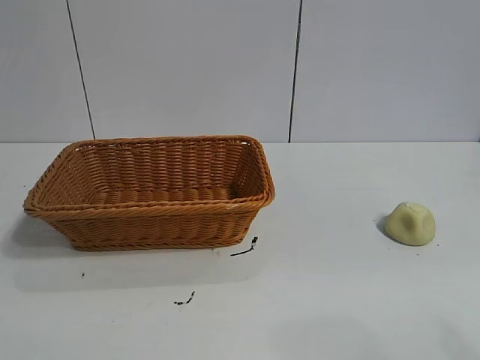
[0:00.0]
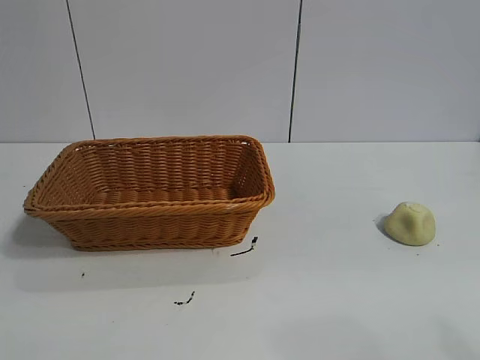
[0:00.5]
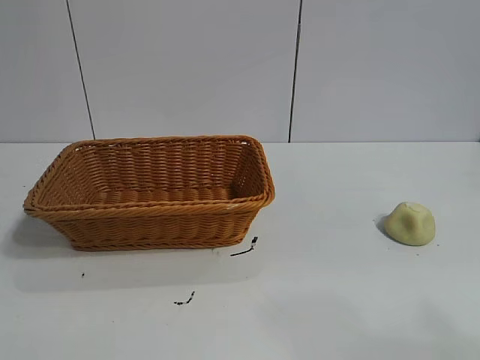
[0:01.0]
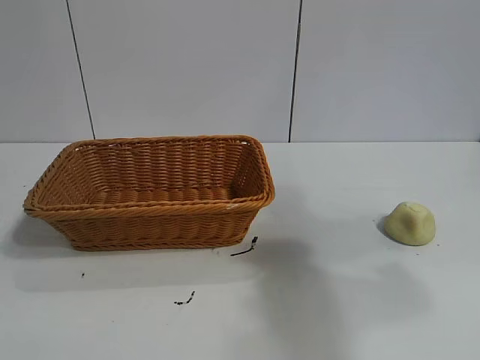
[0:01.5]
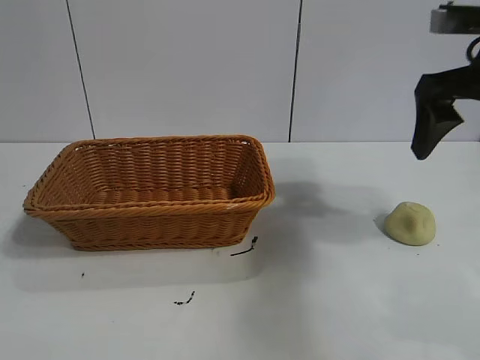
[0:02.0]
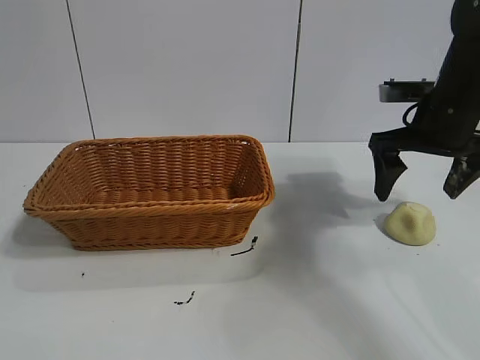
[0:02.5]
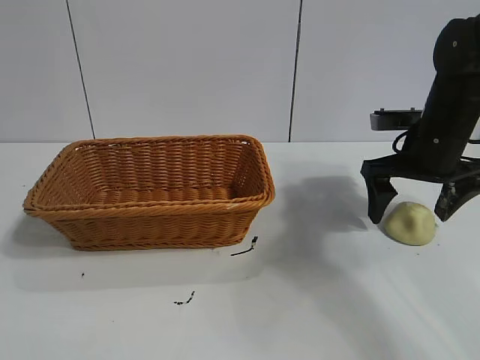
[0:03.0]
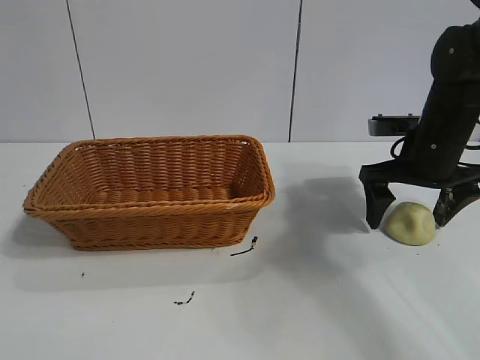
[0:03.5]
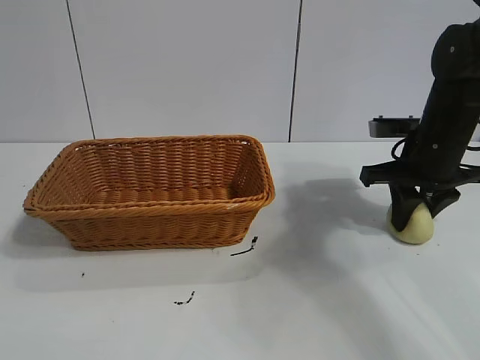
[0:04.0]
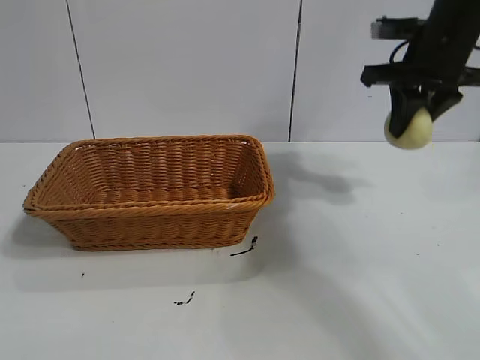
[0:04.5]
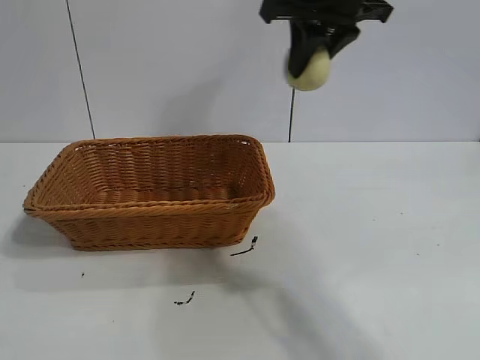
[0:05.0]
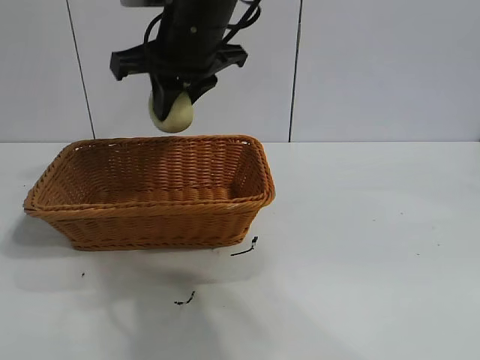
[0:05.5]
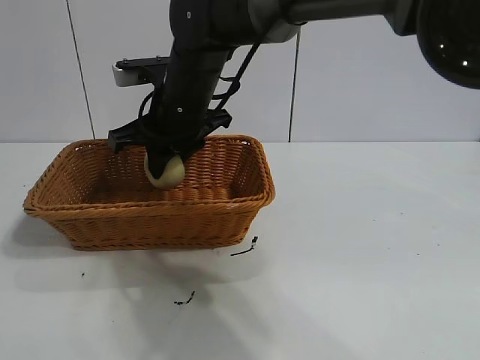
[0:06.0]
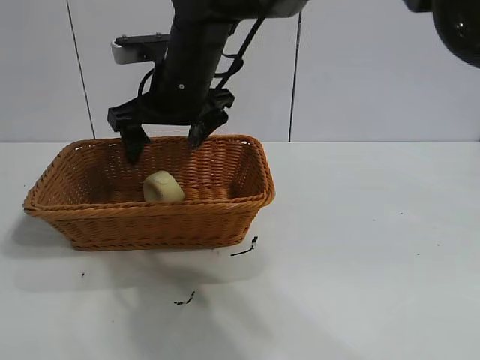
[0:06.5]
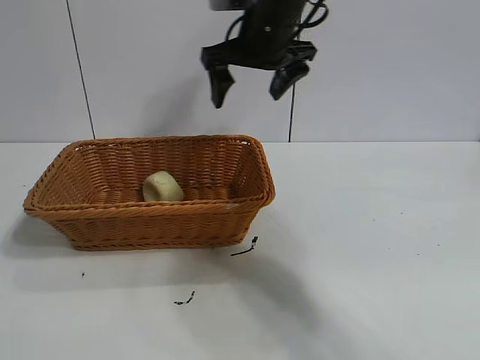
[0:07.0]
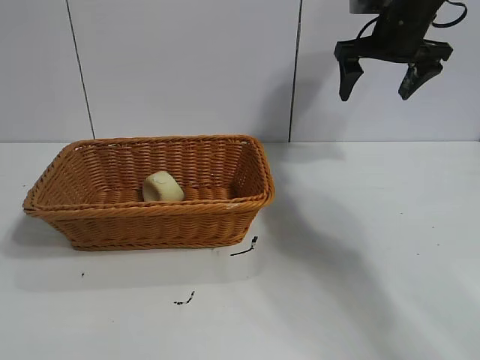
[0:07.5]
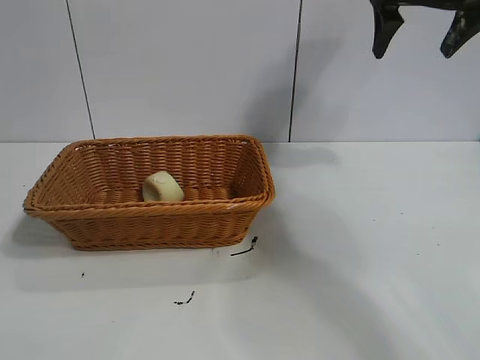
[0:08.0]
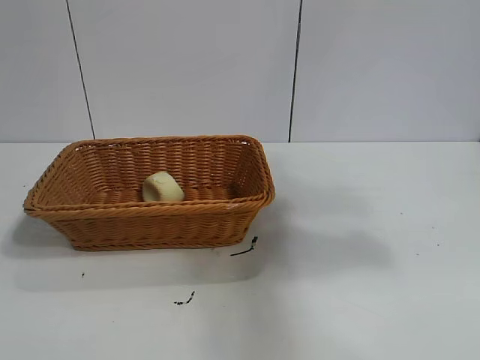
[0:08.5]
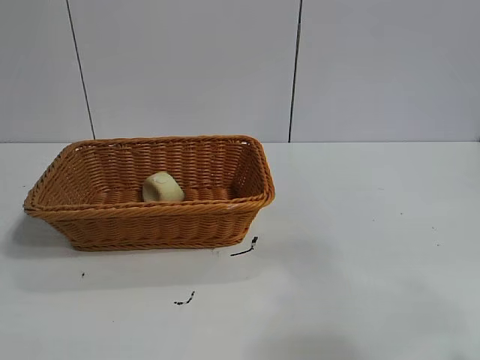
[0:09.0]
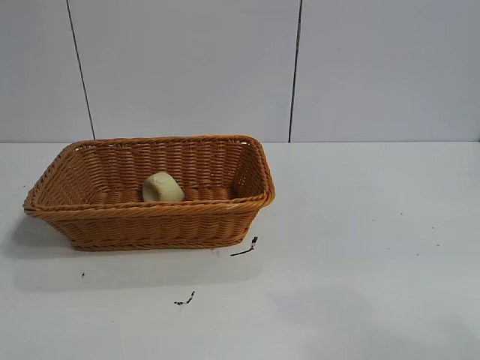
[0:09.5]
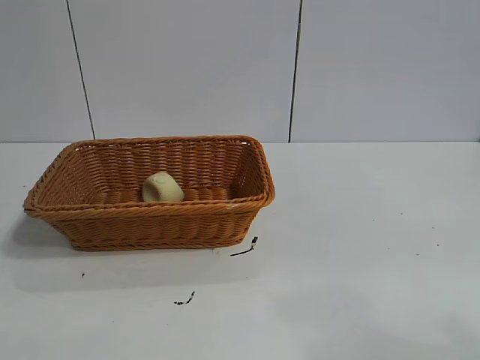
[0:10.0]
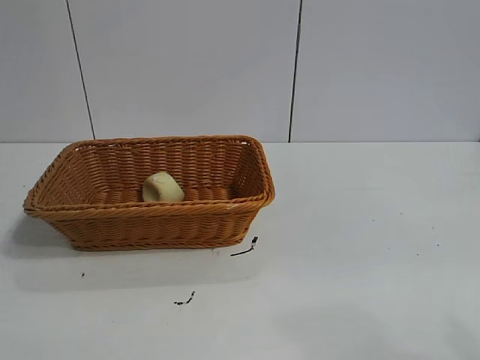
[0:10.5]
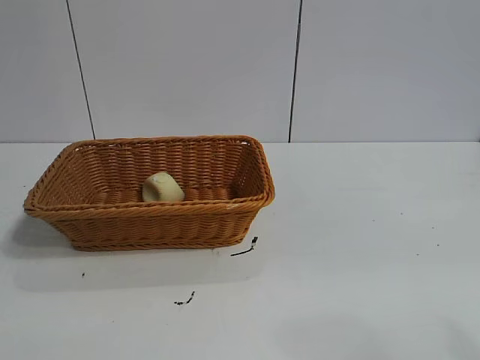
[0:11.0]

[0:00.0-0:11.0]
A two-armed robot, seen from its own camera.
Task of the whole recording: pick up the egg yolk pastry and put it into the basket.
Step, 0:01.0 to 0:04.0: Grasp egg yolk pastry with right gripper.
Step, 0:04.5 to 0:06.0: Place the egg yolk pastry in the basket with right gripper.

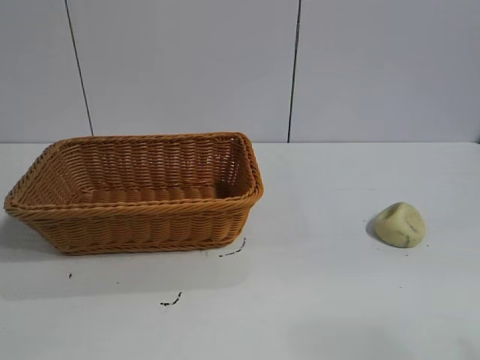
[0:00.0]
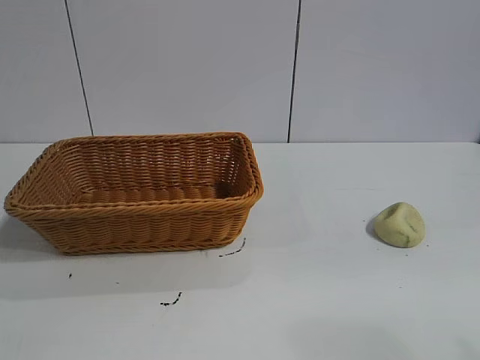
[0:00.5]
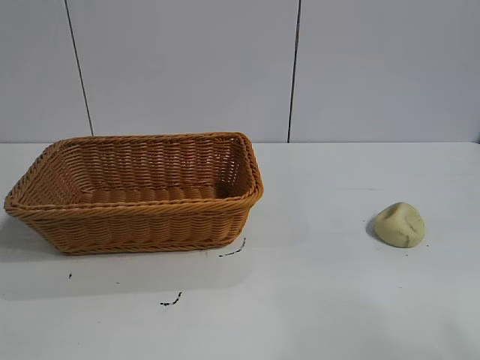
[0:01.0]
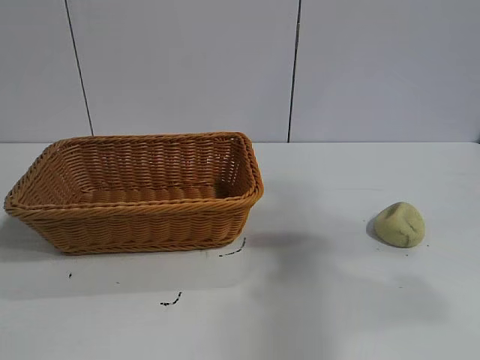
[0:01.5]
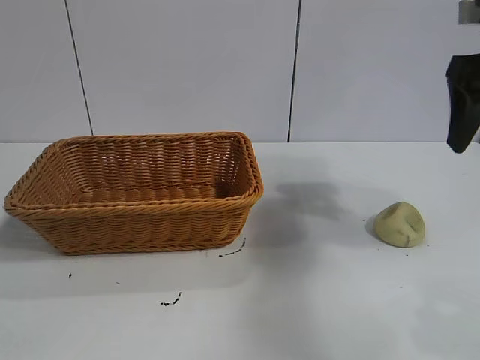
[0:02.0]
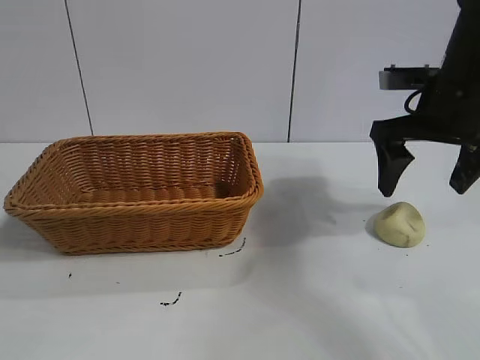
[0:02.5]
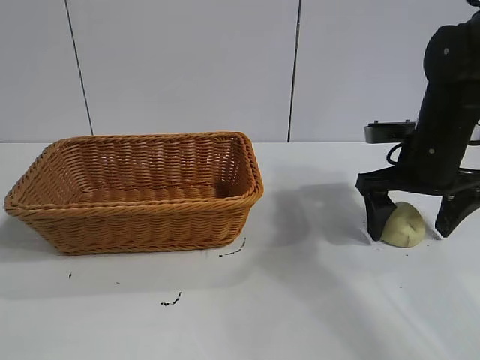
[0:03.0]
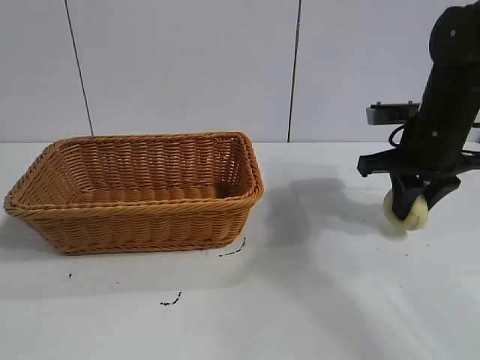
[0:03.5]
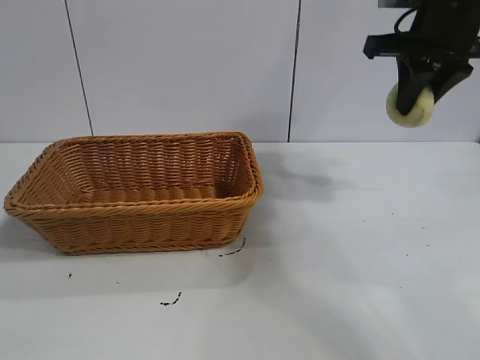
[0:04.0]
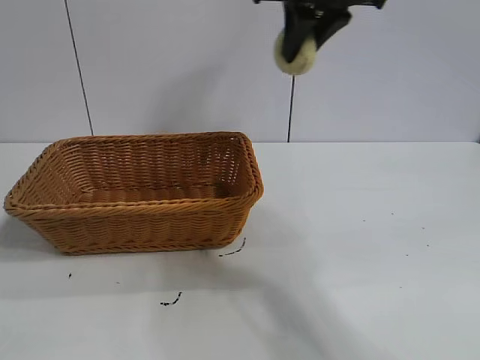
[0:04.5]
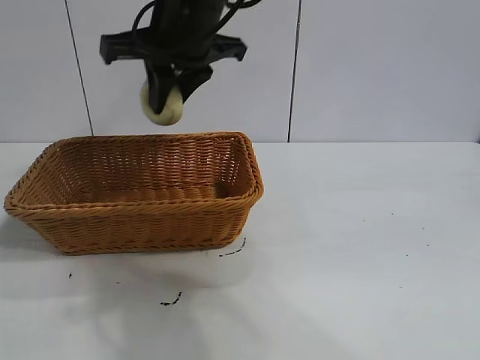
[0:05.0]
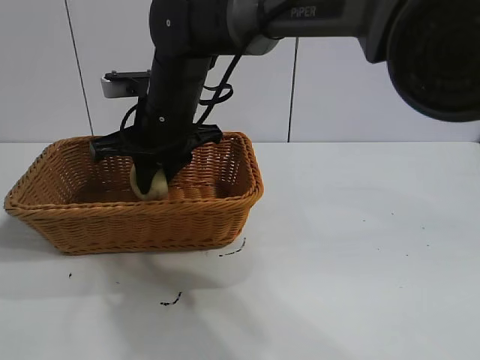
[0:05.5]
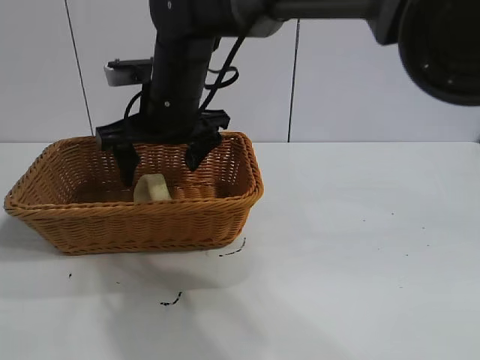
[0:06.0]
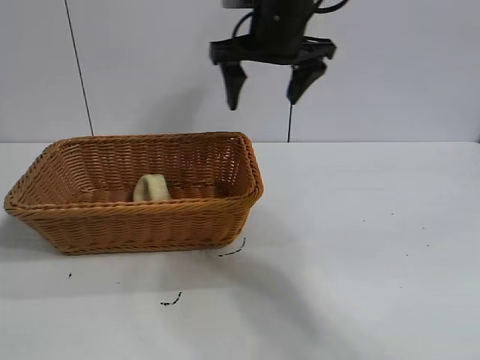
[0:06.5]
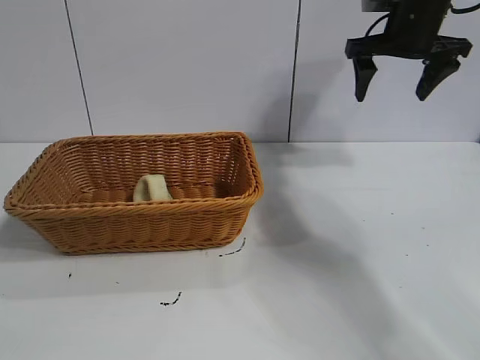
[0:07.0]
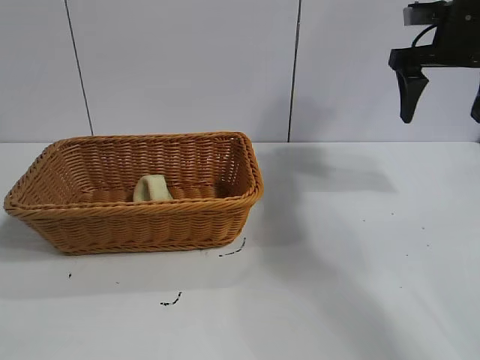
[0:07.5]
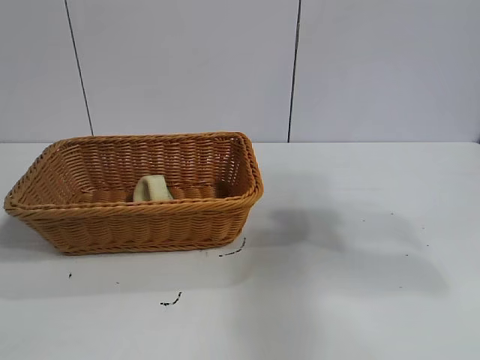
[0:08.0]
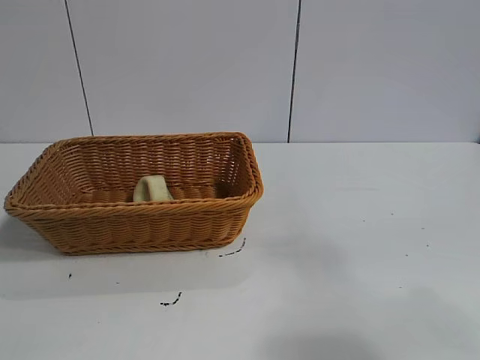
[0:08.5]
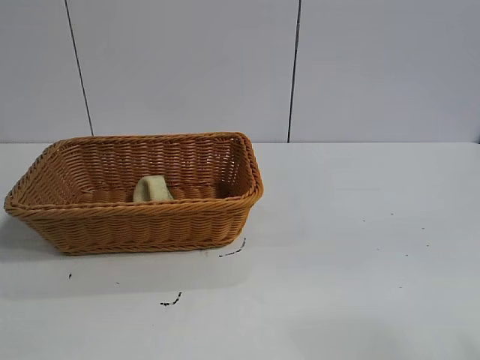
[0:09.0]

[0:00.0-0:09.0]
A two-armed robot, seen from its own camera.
Task of the whole recording: pick up the egg yolk pastry and put it into the basket.
Step, 0:01.0 to 0:03.0: Grasp egg yolk pastry with right gripper.
Step, 0:03.5 to 0:06.0: Place the egg yolk pastry in the basket with right gripper.

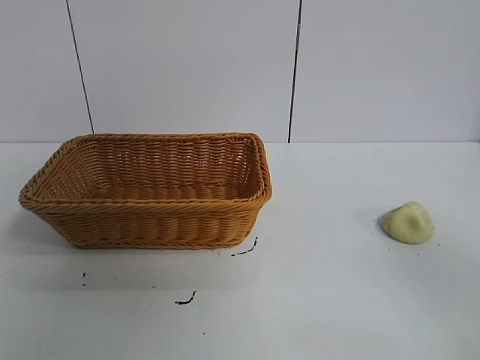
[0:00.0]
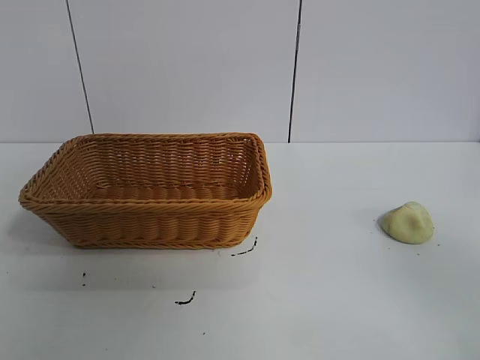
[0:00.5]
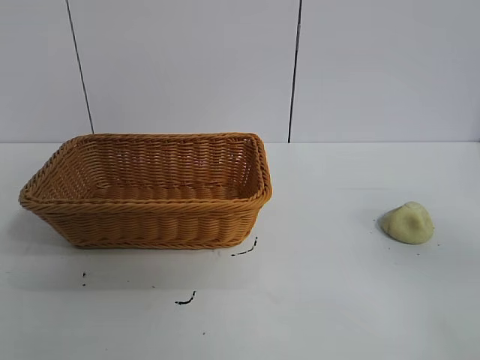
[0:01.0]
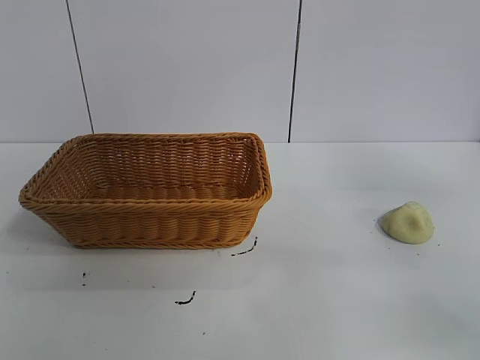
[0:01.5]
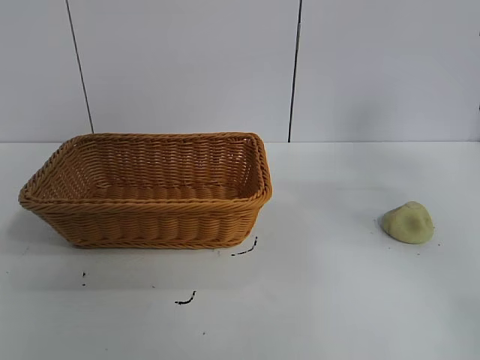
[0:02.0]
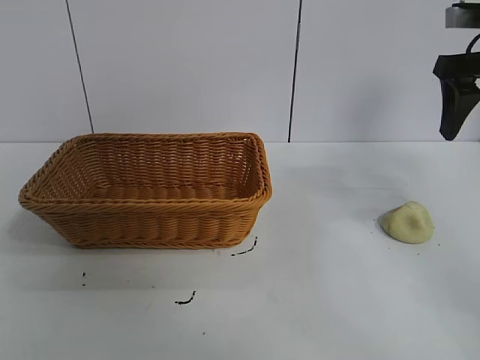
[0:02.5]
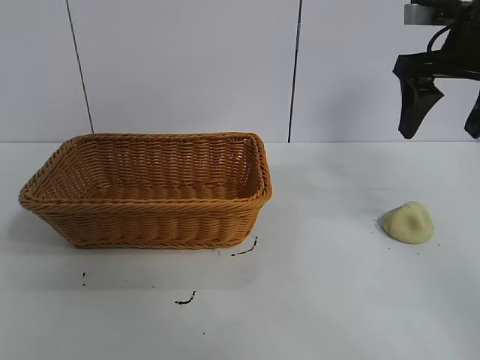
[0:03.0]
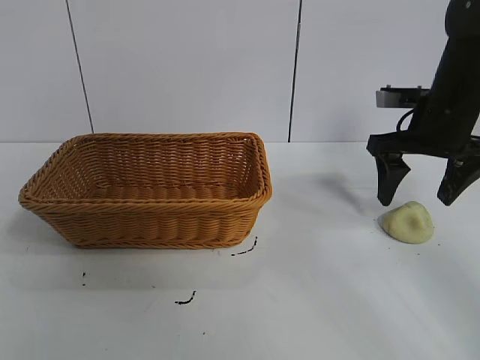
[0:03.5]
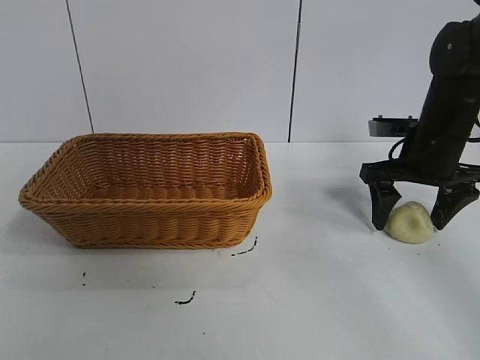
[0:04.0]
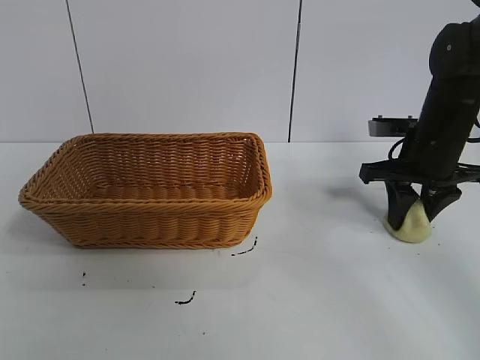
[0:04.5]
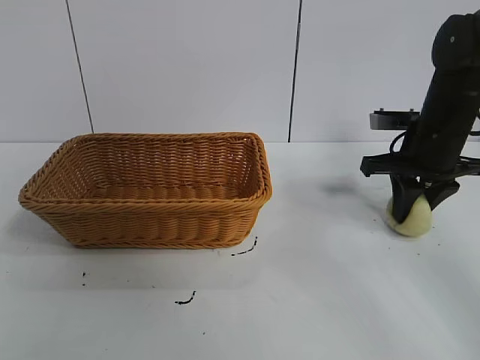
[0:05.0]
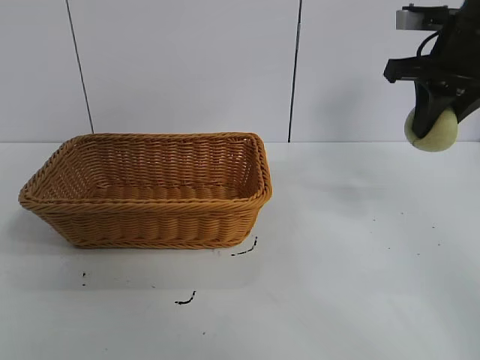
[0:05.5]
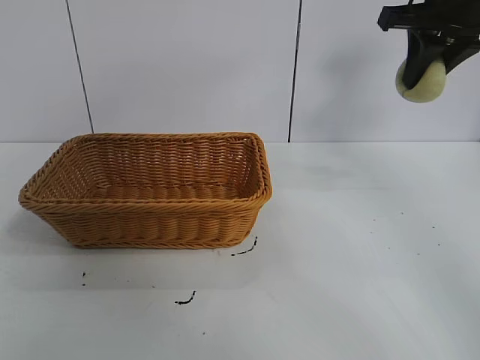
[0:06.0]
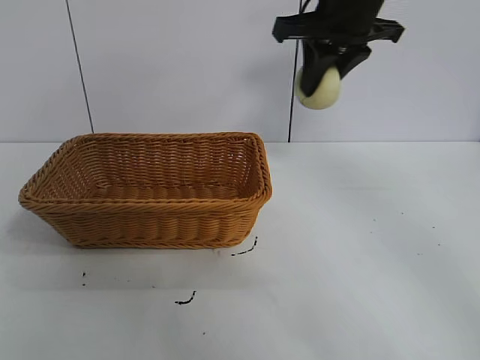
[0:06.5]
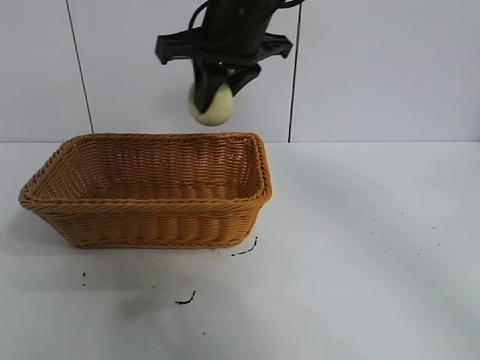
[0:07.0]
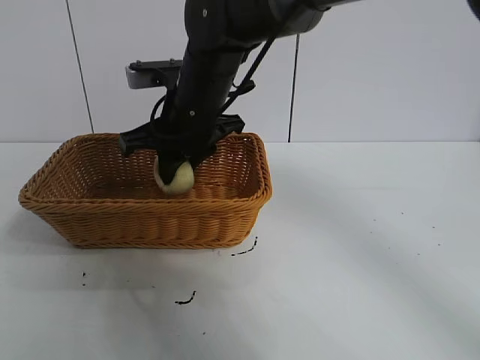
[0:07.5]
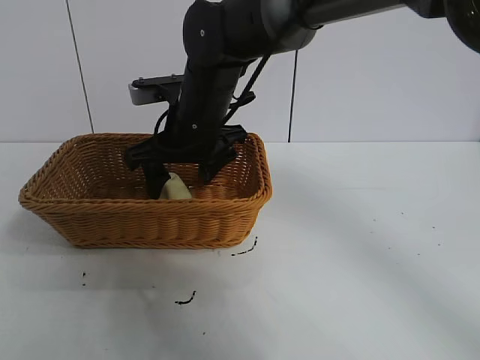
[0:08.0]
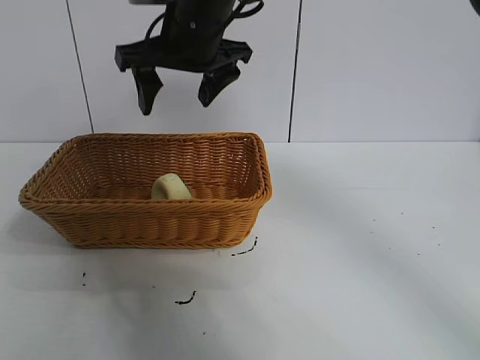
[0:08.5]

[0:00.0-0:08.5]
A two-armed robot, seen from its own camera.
Task of the whole recording: pick up the egg yolk pastry and put it into the basket.
Step, 0:01.0 to 0:04.5: Grasp egg yolk pastry with right gripper.
Step, 0:05.0 to 0:07.5: Place the egg yolk pastry in the basket with right gripper.
